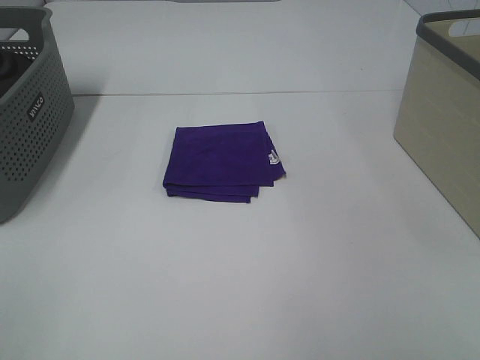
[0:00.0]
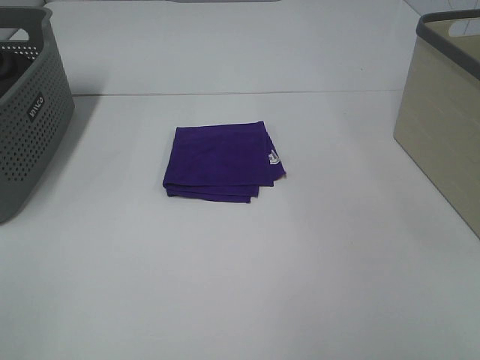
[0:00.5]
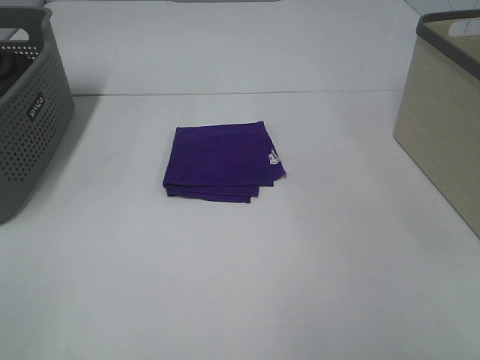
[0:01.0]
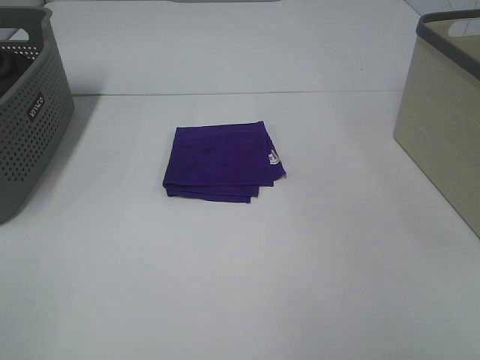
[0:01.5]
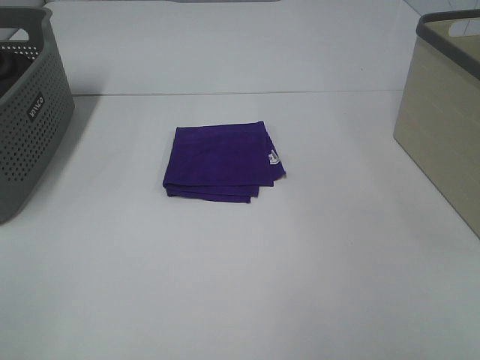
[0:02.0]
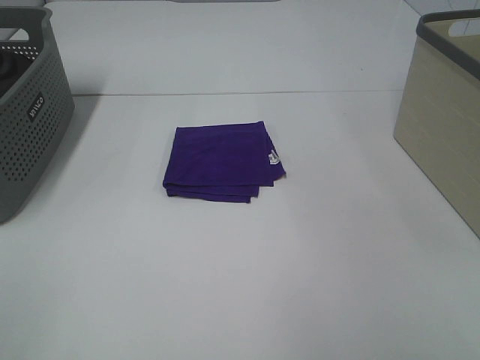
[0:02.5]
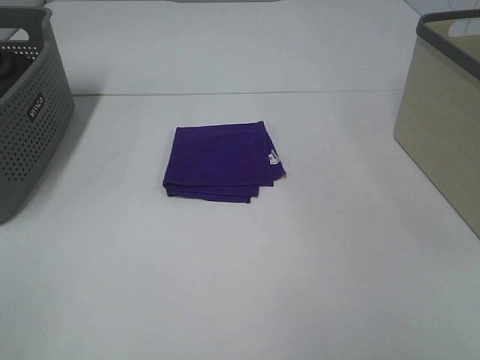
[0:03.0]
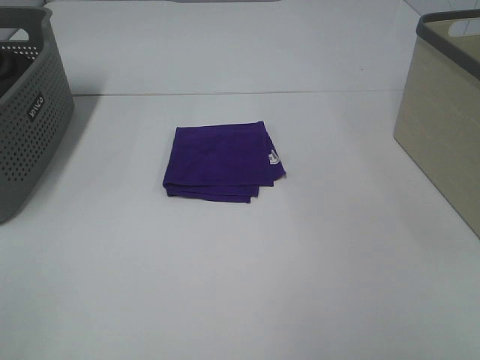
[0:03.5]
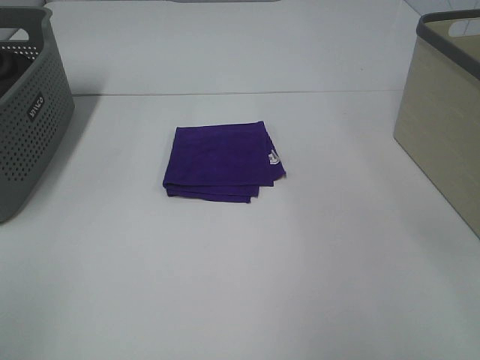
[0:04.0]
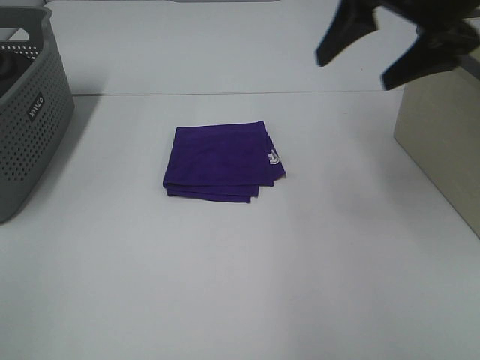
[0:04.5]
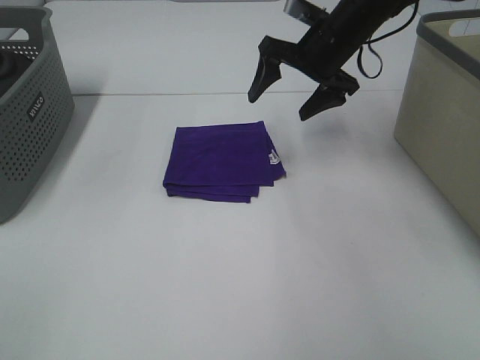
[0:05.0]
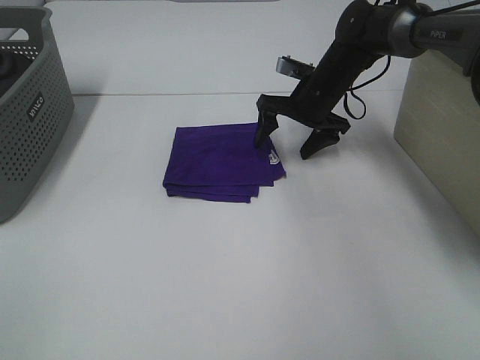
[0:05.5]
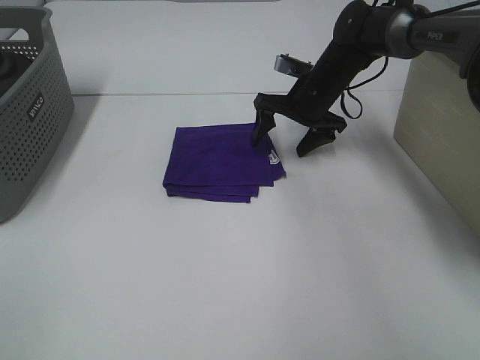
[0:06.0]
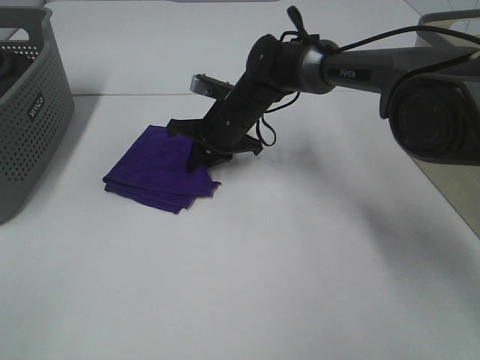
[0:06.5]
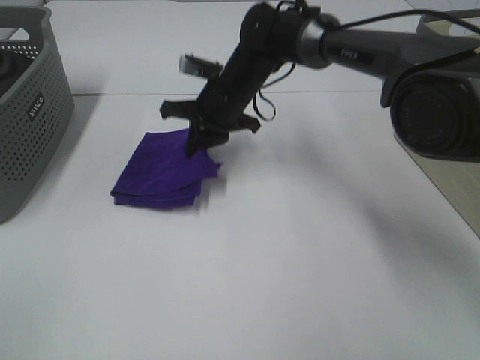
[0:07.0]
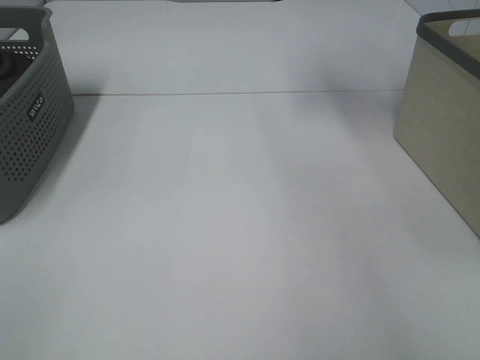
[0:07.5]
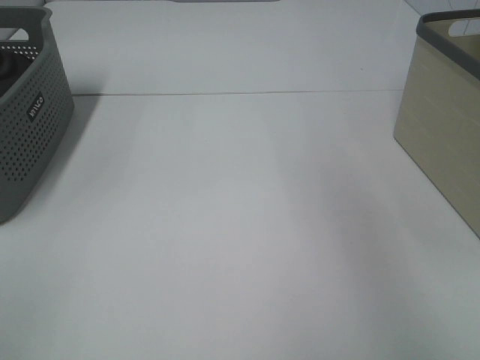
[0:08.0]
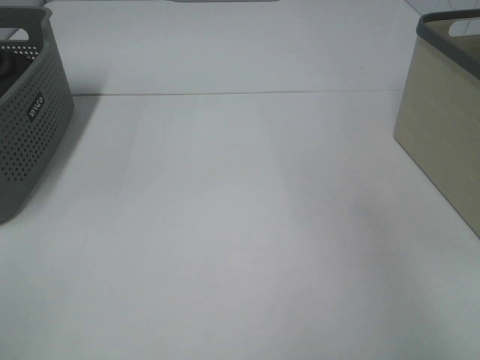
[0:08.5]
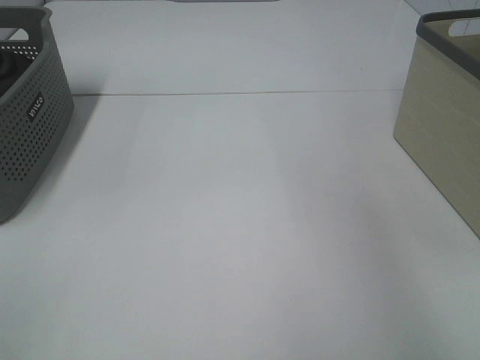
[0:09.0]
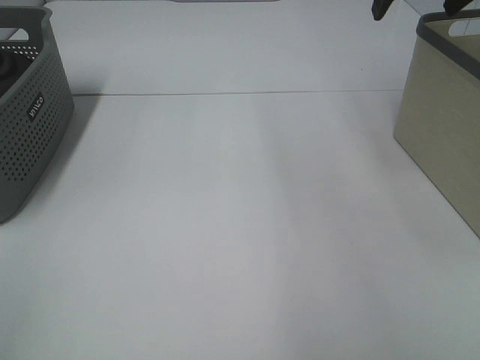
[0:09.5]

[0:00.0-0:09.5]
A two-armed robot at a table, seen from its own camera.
Step, 0:00.0 to 0:06.5: Right hand: grab the folded purple towel.
Step, 0:07.0 to 0:08.5: Right hand: place the purple towel in right basket.
0:00.0 to 0:02.0: The two grippers keep their place.
0:04.0 to 0:05.5: The right gripper moves forward and downward, roughly 40 cm.
0:05.5 to 0:07.5: The right gripper heads upward, covering some 30 cm, and closes up.
0:07.5 to 0:09.5: The right gripper heads downward, covering approximately 5 cm, reaches some 20 cm to the right, then returns, and opens.

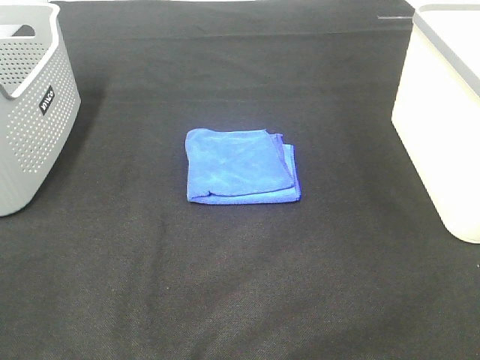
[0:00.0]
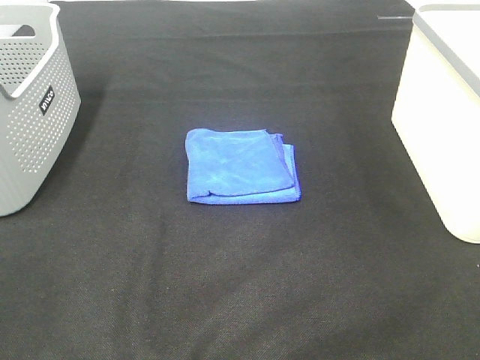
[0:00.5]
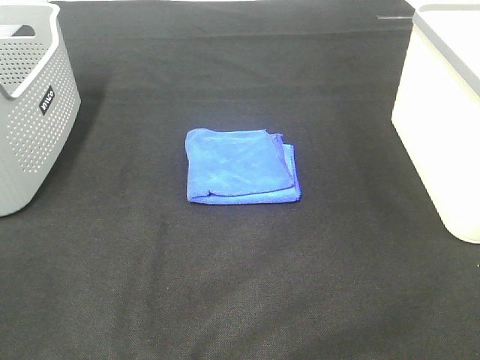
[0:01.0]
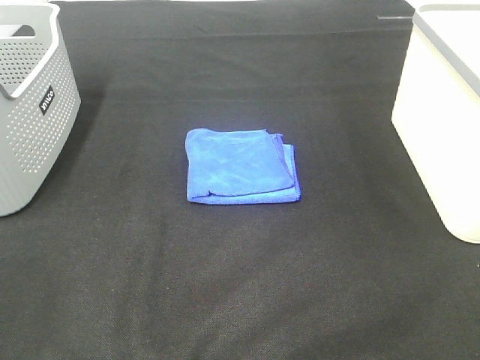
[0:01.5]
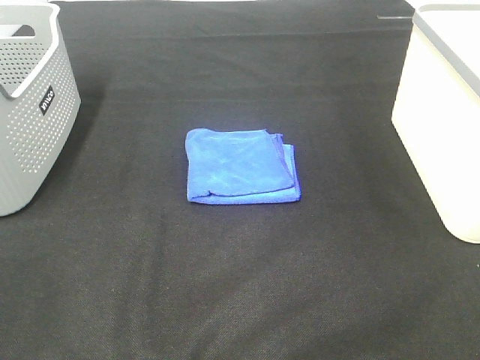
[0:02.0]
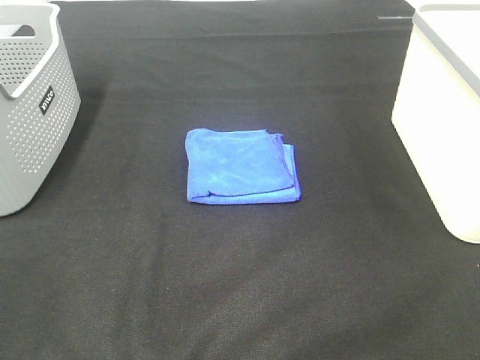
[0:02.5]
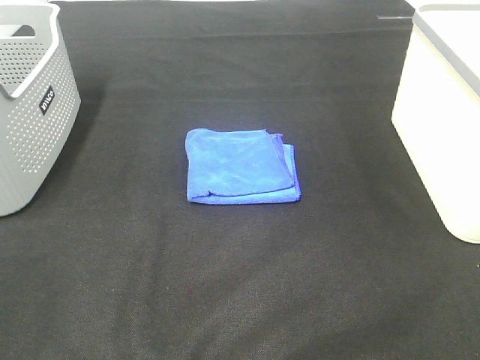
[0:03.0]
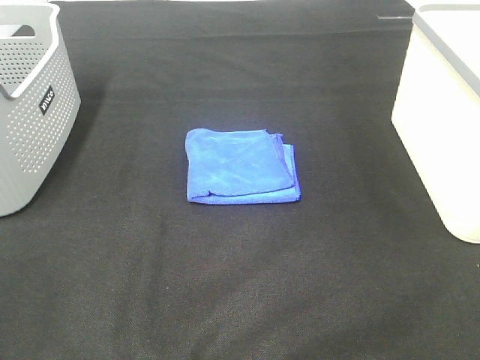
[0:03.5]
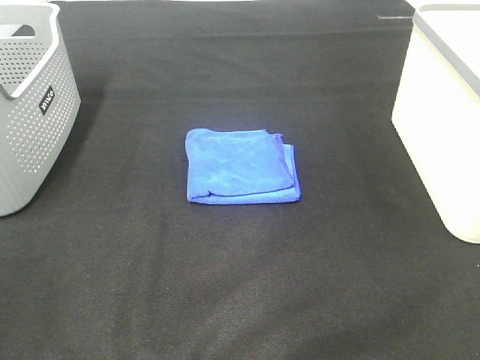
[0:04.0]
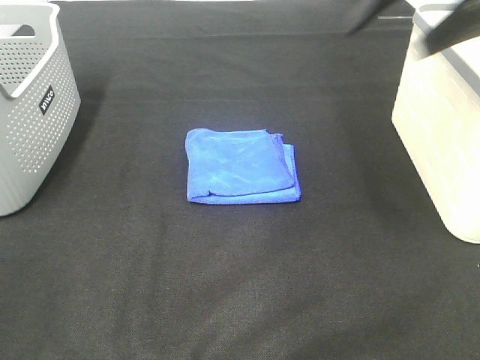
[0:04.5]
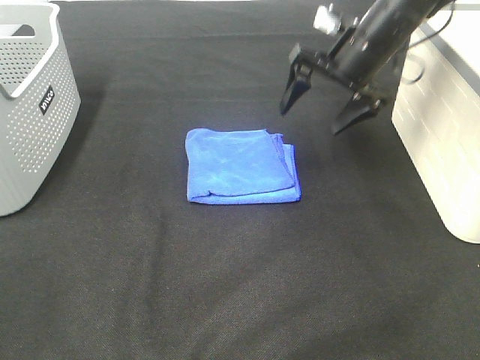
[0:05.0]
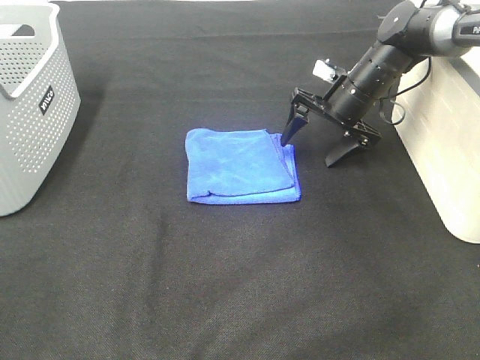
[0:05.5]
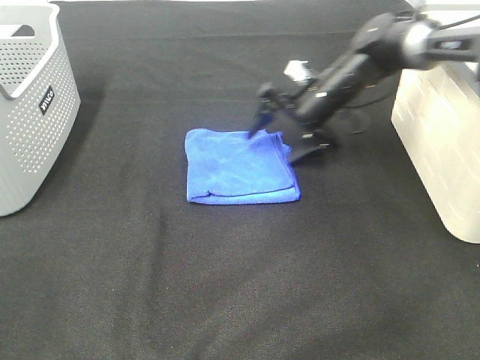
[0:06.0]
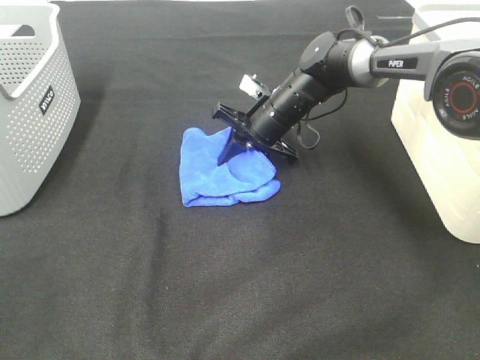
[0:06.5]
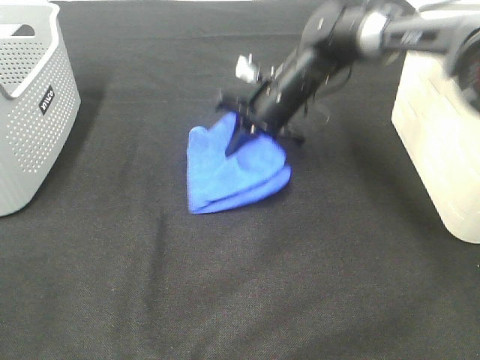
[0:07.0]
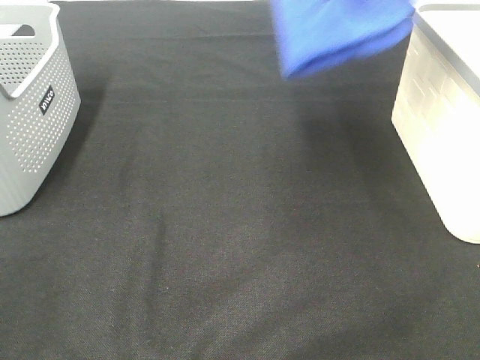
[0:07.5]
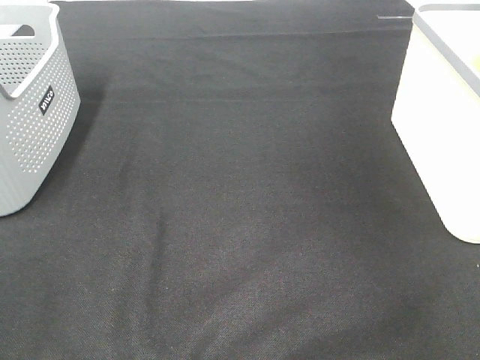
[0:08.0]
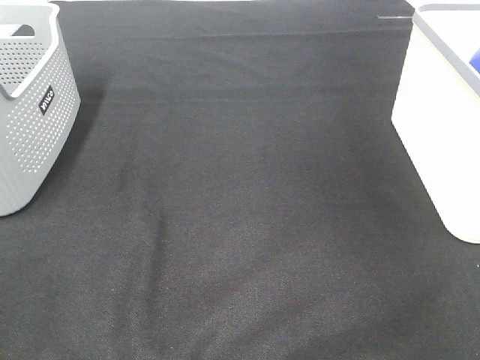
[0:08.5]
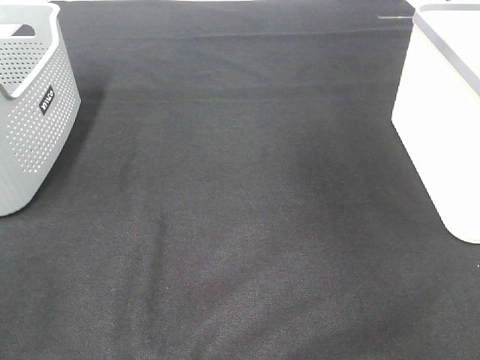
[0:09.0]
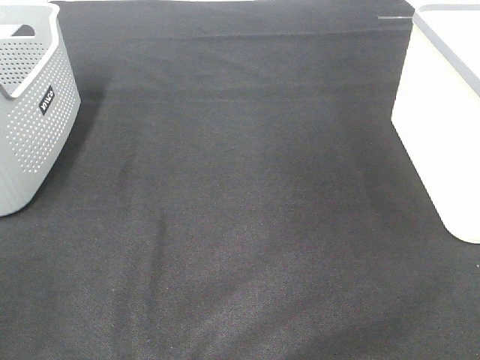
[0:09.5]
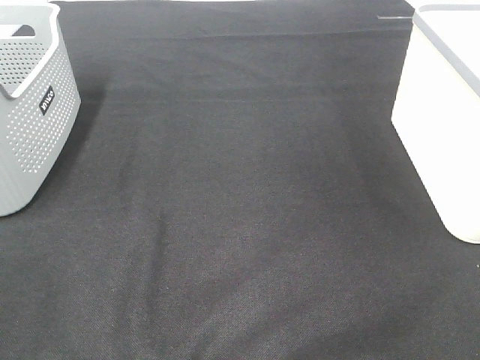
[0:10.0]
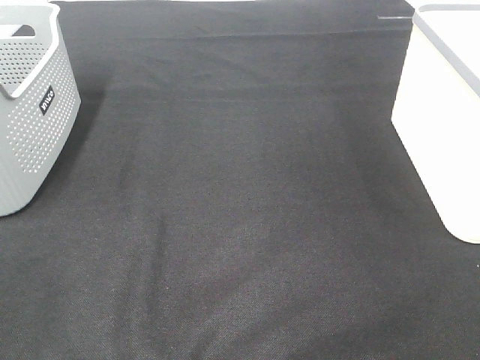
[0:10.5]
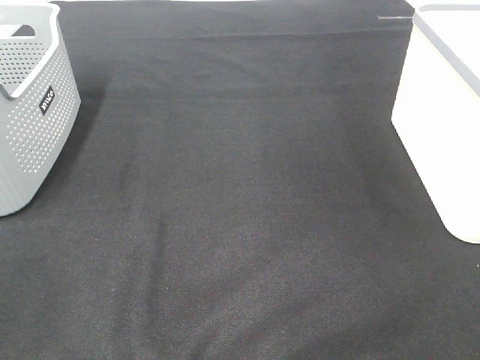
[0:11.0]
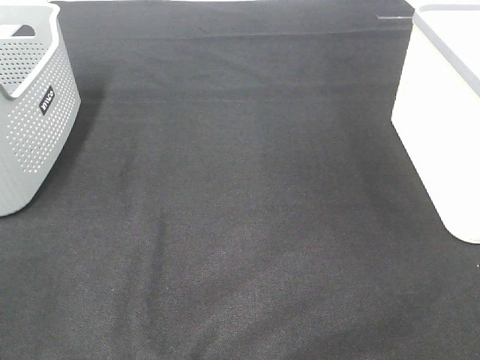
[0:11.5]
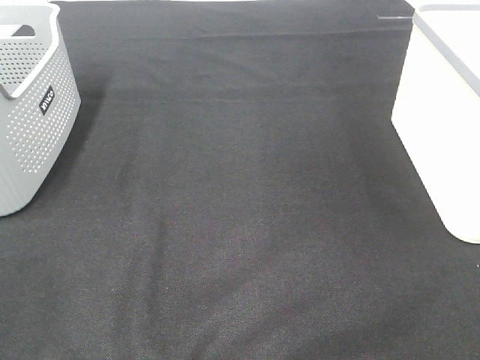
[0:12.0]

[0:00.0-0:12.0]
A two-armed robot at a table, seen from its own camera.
Step, 0:00.0 to 0:06.5: Right hand: grab the folded blue towel.
Step, 0:07.0 to 0:08.5: Right hand: place the blue towel in right basket.
0:00.0 to 0:02.0: Both grippers stay put.
0:04.0 to 0:06.0: The right gripper heads downward, forward and to the left, covering about 50 cm.
0:06.0 to 0:08.0: The right gripper is displaced upward and to the right by about 40 cm, and closes its fingers.

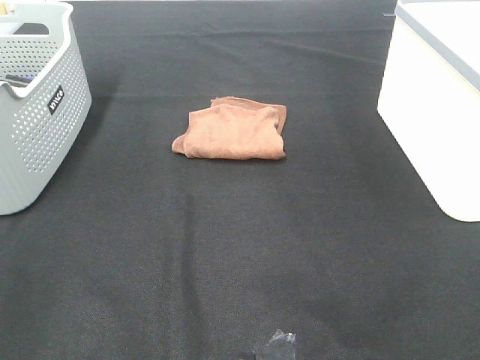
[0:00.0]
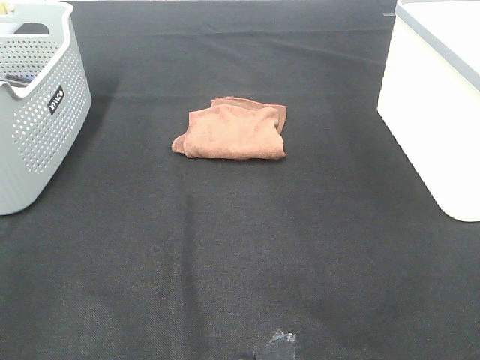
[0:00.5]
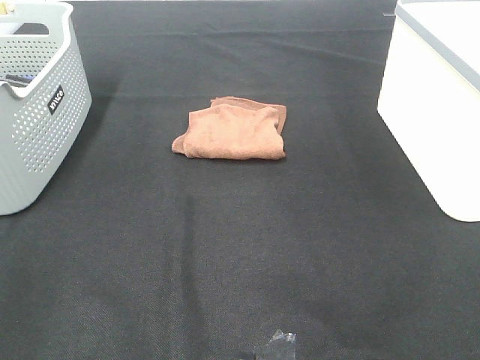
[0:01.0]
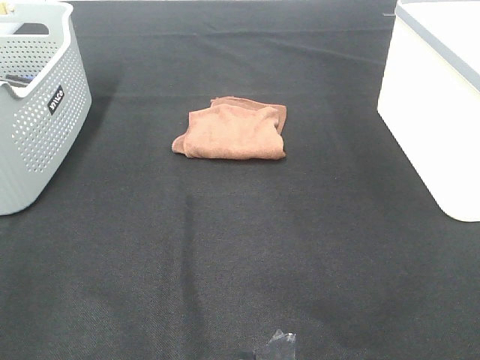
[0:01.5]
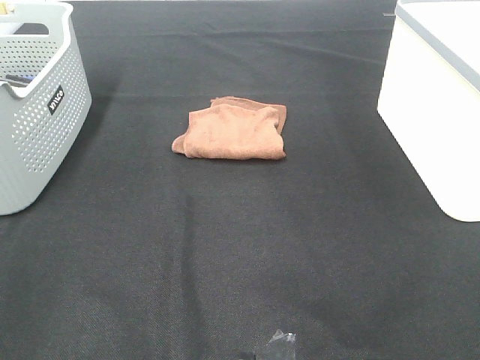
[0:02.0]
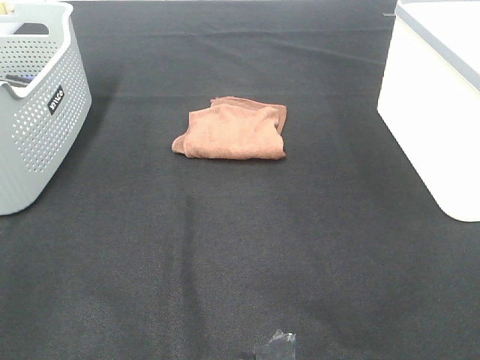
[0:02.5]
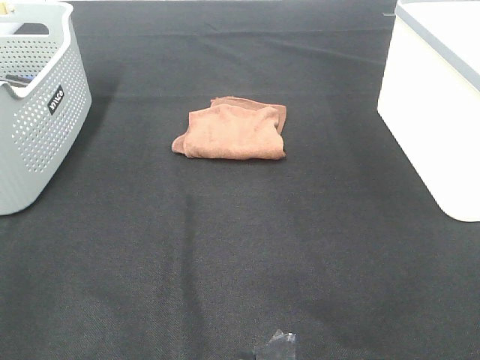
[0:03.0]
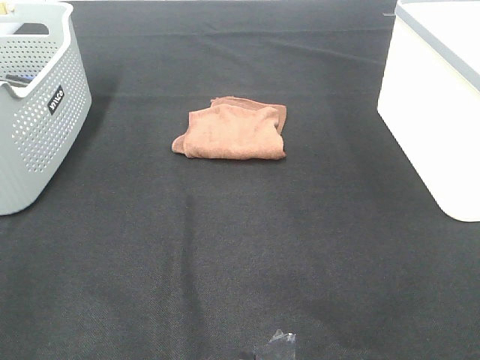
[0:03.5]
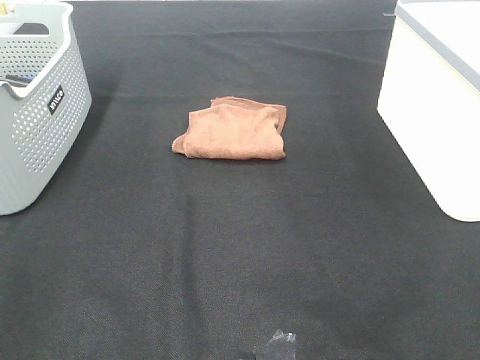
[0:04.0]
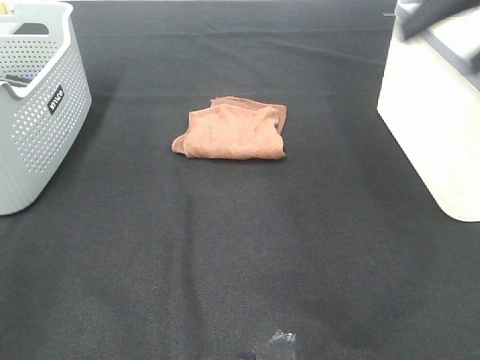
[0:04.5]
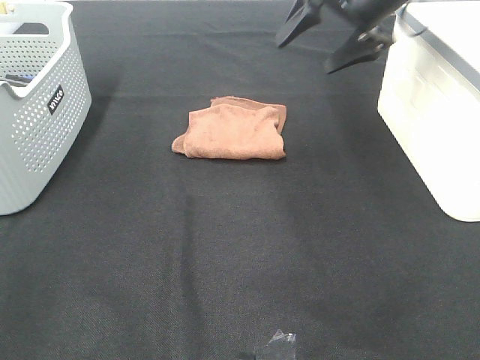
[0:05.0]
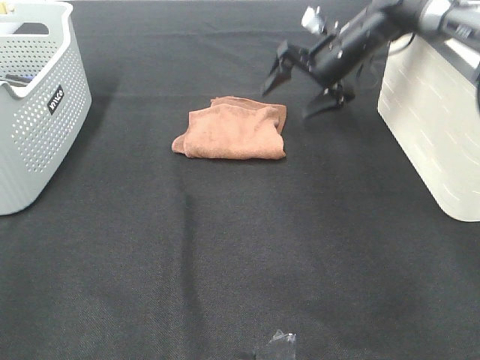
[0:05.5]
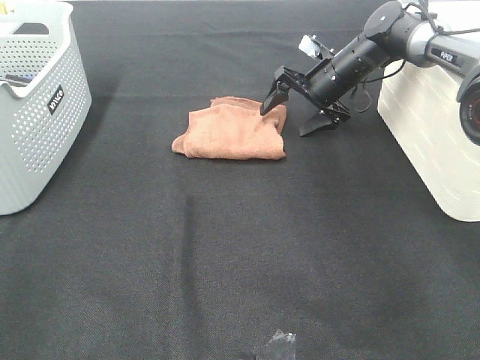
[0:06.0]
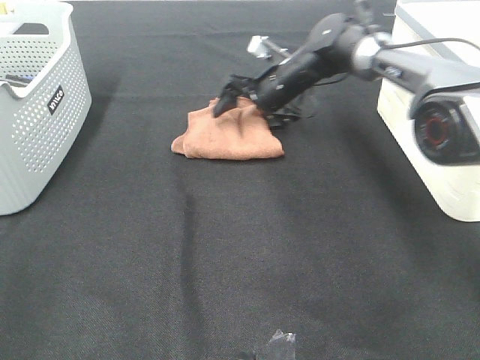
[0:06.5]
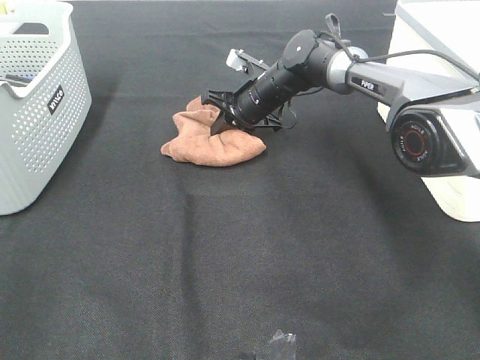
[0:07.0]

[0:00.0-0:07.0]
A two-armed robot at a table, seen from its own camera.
Step, 0:00.0 to 0:06.5: Right hand: grab the folded brown towel.
0:00.0 to 0:03.5: The two grippers keep their place.
0:03.5 to 0:05.0: The right gripper moves forward, approximately 50 cm.
0:05.0 to 0:07.0: The right gripper shifts roughly 20 cm downward and to the left, and closes its fingers.
